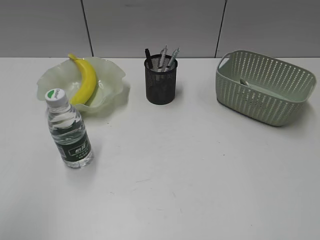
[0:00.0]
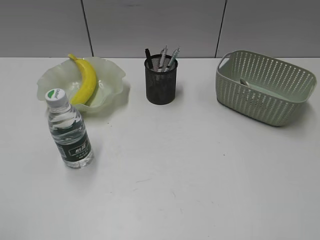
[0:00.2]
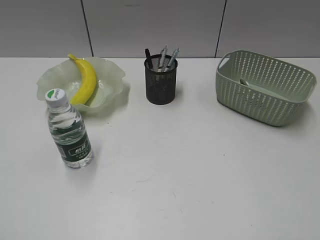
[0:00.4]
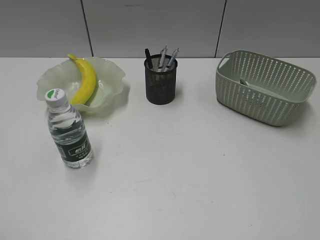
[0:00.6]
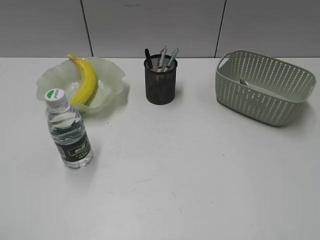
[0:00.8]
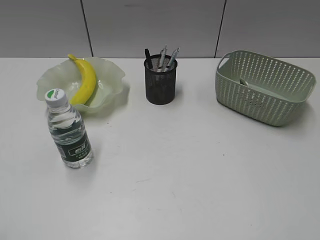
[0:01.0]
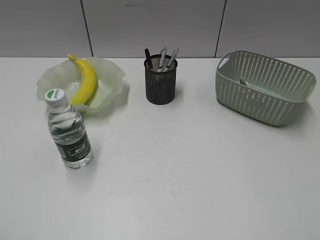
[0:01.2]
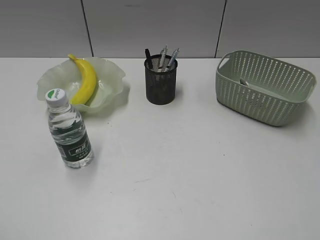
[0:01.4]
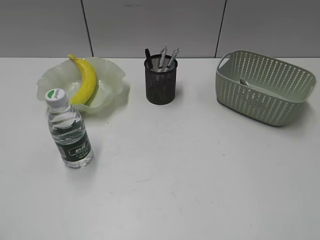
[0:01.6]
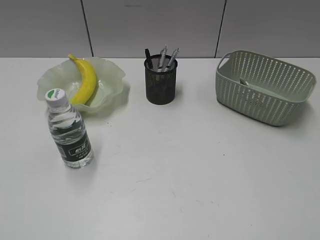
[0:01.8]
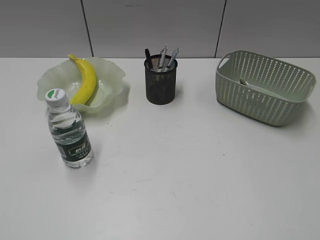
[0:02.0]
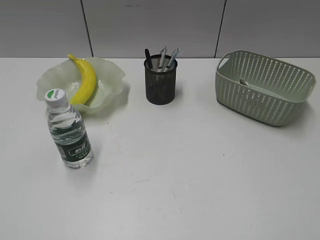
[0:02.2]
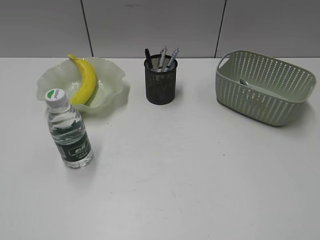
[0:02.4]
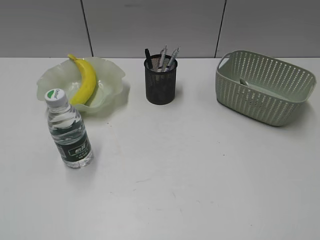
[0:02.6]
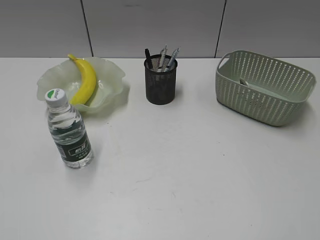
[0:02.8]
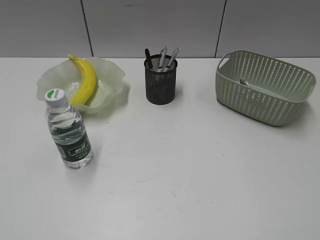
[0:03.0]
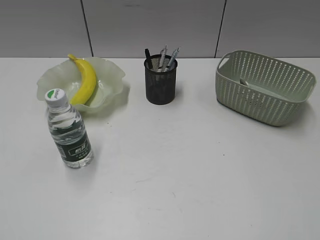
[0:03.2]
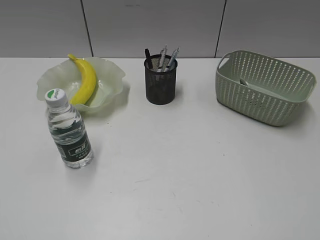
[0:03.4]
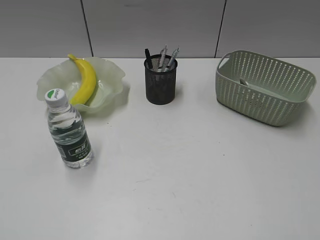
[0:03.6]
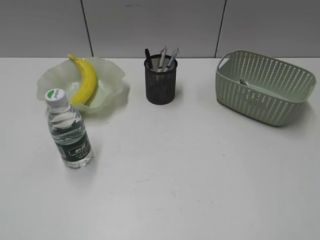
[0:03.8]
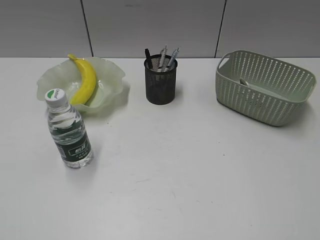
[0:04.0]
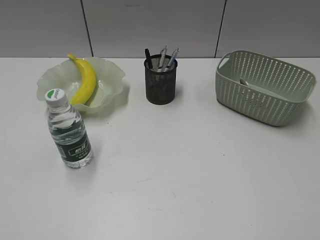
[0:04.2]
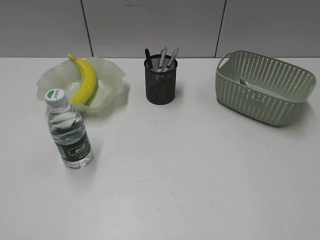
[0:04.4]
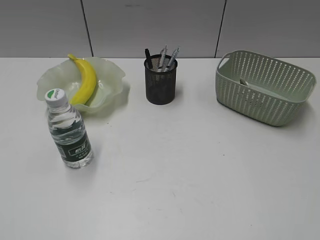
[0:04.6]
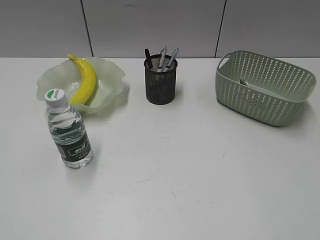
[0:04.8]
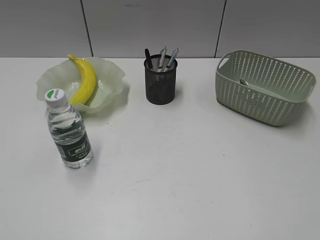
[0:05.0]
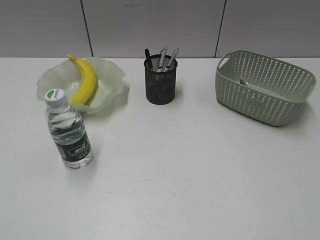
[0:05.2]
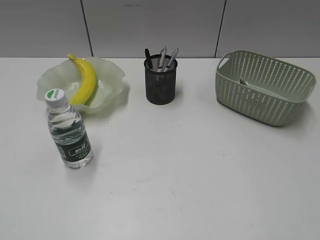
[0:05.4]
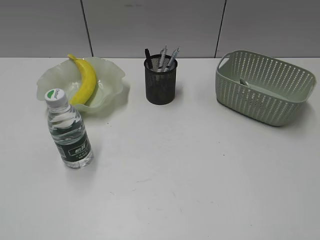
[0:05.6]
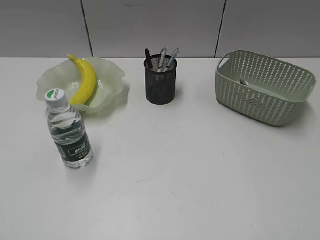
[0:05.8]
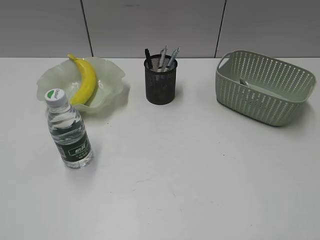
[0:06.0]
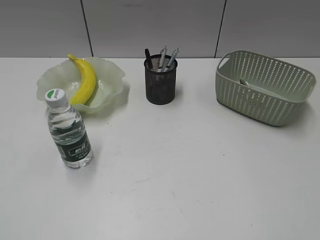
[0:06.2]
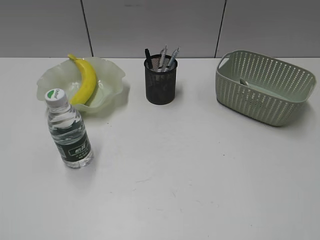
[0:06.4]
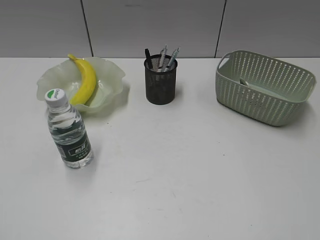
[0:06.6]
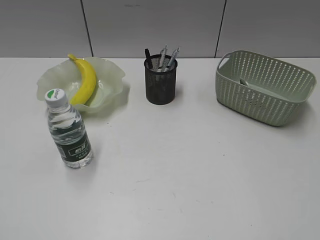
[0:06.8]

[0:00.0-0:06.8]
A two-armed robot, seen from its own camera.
0:02.8 to 0:04.0: Both grippers stay about where they are.
